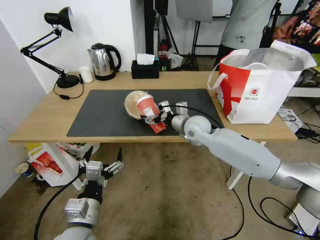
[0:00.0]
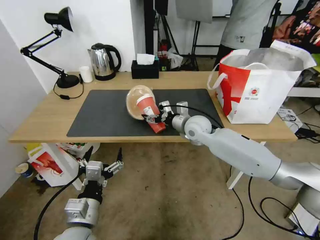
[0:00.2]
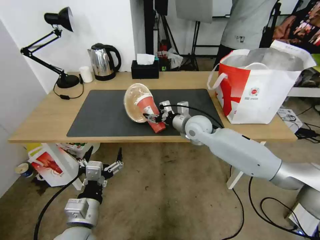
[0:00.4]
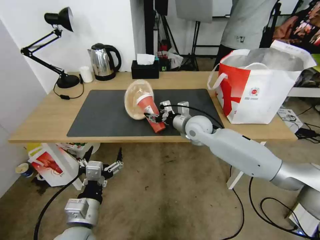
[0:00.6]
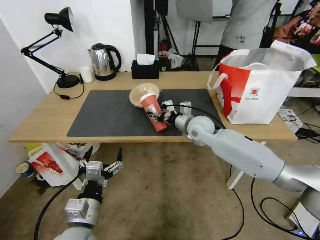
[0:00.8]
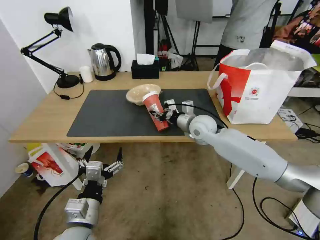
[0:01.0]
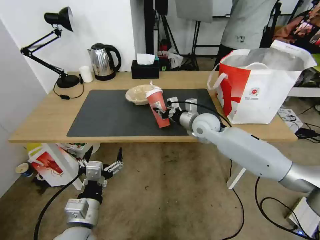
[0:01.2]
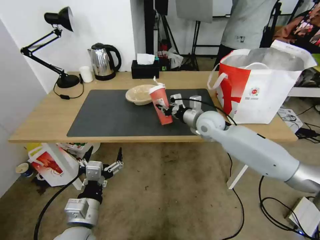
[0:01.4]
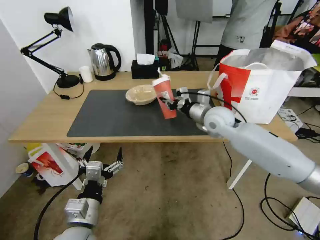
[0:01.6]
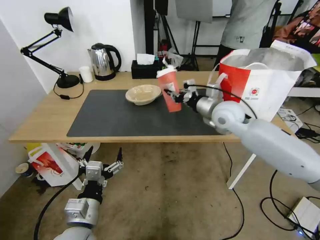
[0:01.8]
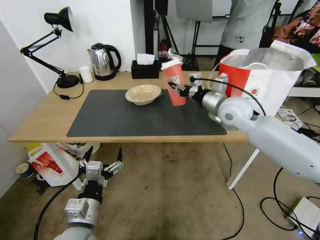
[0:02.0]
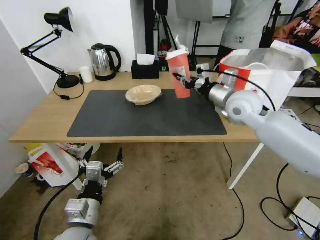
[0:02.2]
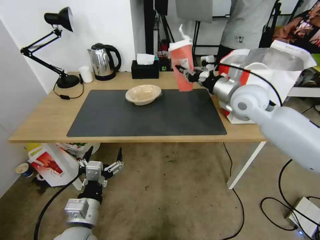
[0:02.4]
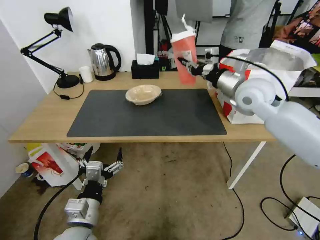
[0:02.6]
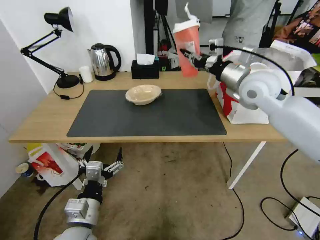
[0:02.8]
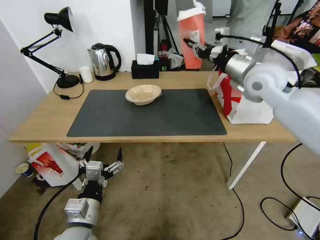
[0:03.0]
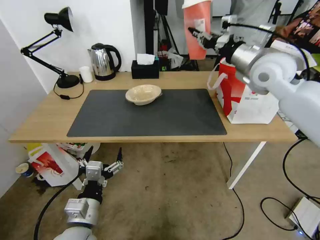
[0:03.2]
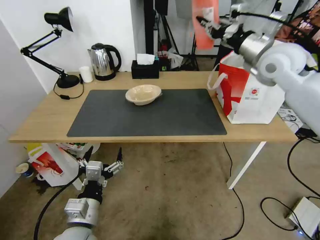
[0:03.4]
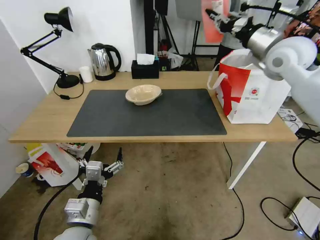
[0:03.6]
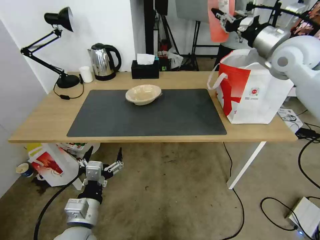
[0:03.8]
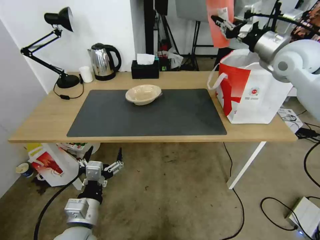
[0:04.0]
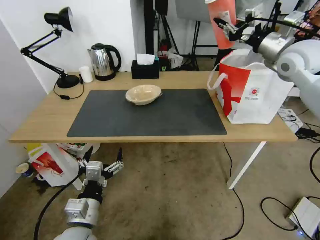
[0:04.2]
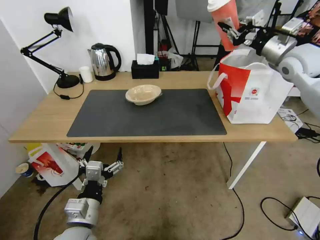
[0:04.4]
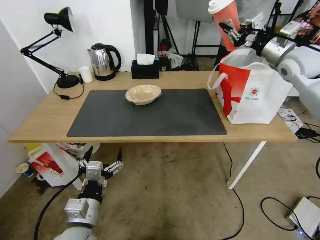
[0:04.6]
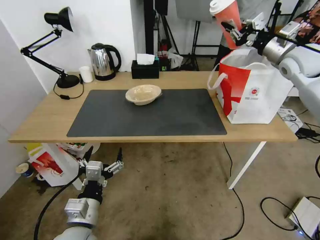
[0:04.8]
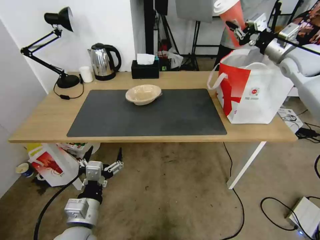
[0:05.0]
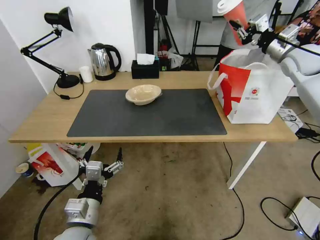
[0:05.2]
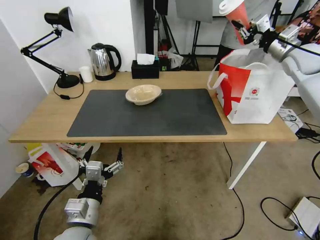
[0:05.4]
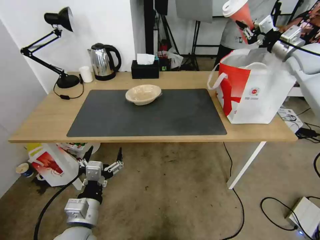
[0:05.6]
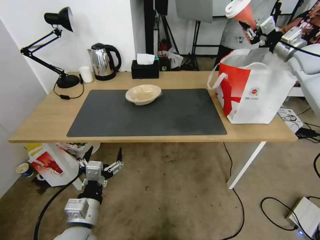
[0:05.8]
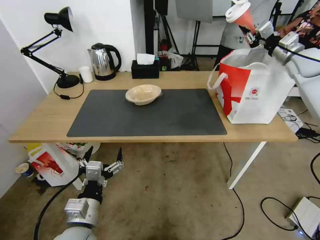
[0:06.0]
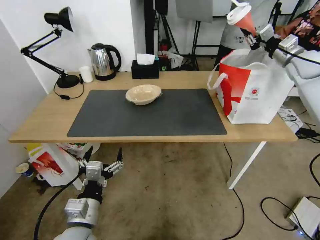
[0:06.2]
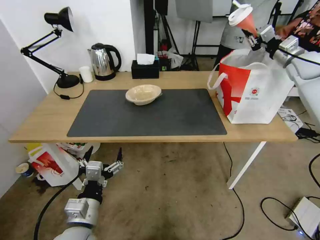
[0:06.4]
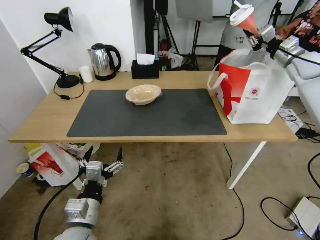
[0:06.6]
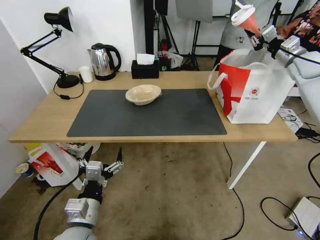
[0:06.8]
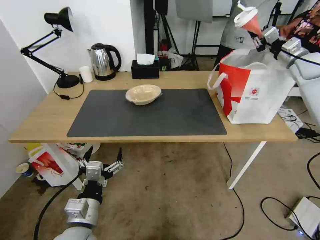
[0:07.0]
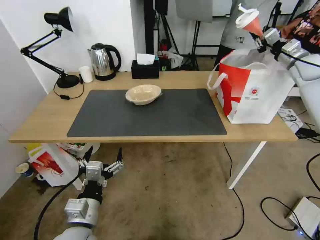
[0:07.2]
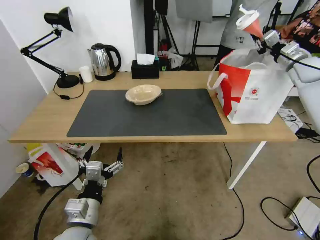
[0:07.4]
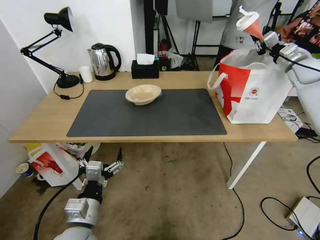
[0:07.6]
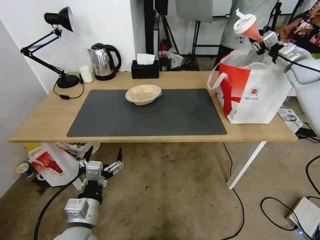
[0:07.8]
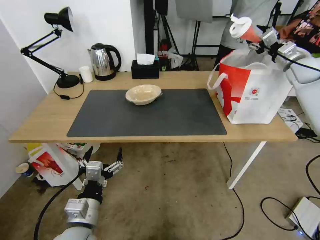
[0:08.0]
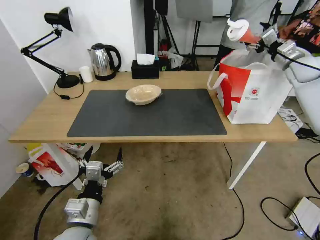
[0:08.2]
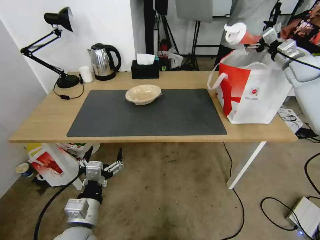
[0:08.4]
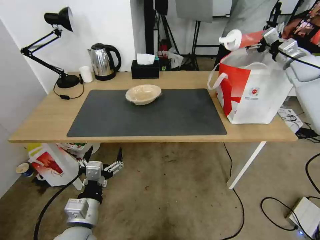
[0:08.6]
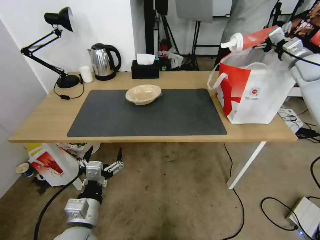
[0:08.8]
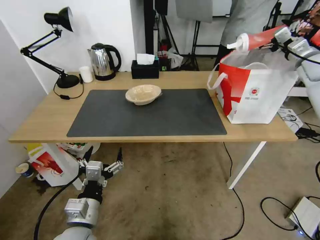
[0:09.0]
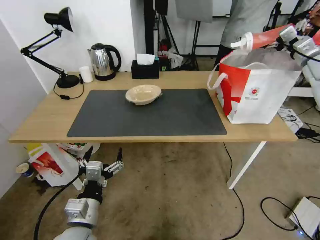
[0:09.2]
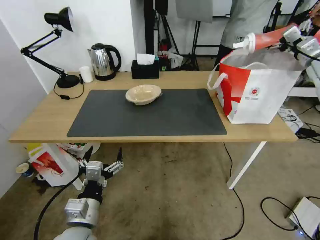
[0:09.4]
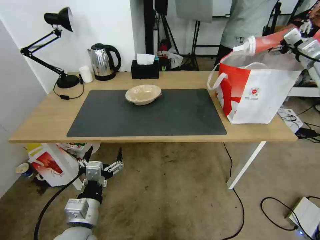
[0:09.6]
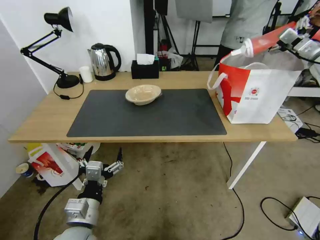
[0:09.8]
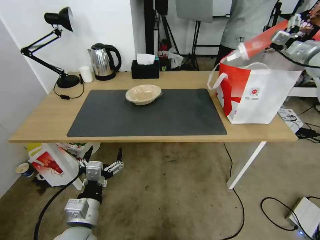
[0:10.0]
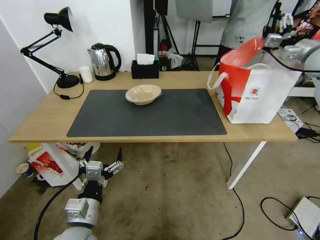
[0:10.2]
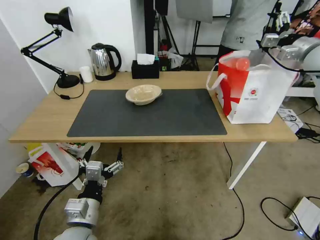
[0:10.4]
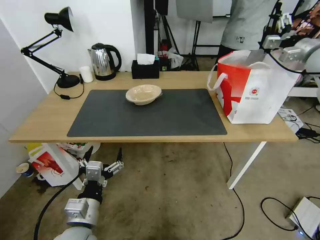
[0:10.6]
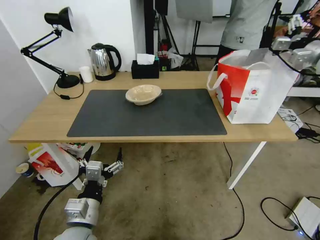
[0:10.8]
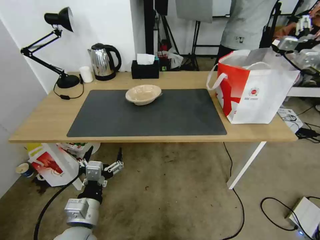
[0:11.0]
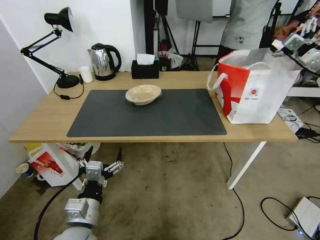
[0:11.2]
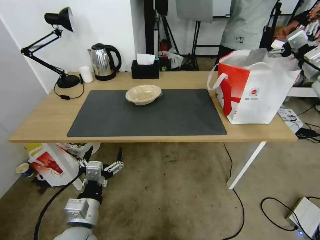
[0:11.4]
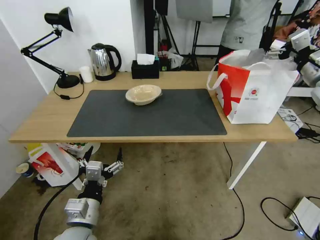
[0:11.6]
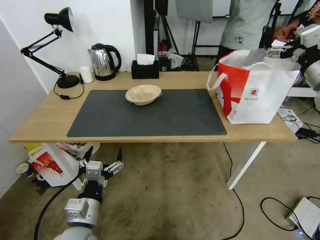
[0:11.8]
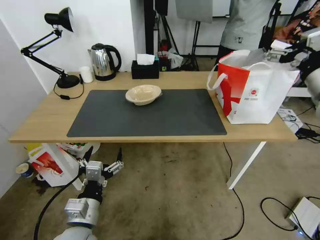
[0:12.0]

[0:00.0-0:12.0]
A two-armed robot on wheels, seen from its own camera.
Task of the whole recording: Pick up the trash from the table and place it into the takeout bag.
0:00.0 to 0:01.6: The right gripper is displaced to the right and upward by approximately 10 cm, and closes.
0:01.6 to 0:03.0: The right gripper is displaced upward and to the right by roughly 15 cm.
0:03.0 to 0:04.4: The right gripper is displaced to the right by approximately 10 cm.
0:04.4 to 0:06.0: The right gripper moves to the right and forward, roughly 10 cm.
0:06.0 to 0:07.6: The right gripper ends up about 5 cm from where it was.
0:07.6 to 0:09.0: The right gripper opens up.
0:09.0 to 0:10.4: The right gripper moves approximately 5 cm.
0:10.4 to 0:12.0: The right gripper goes roughly 20 cm backward and to the left.

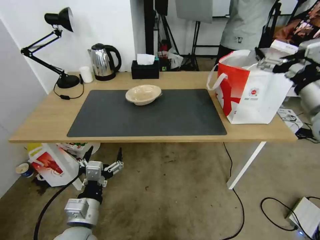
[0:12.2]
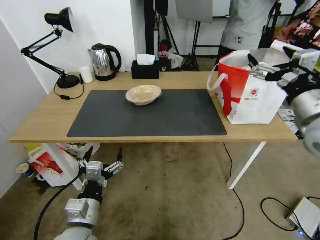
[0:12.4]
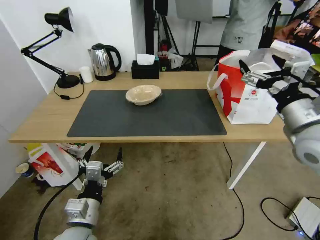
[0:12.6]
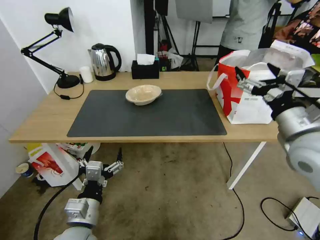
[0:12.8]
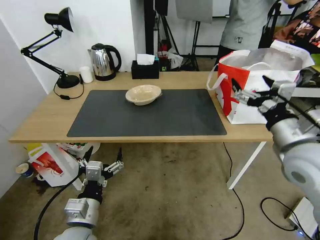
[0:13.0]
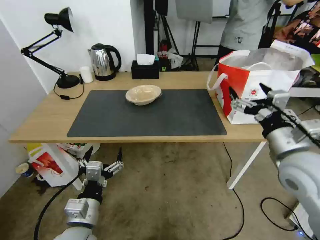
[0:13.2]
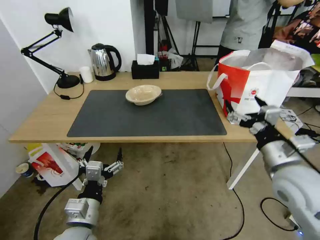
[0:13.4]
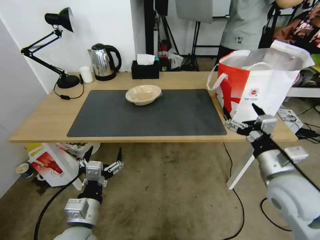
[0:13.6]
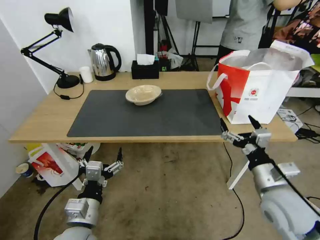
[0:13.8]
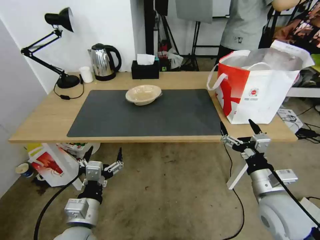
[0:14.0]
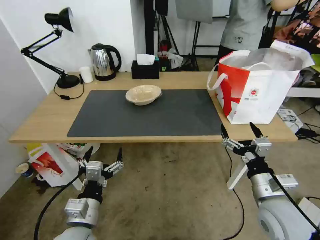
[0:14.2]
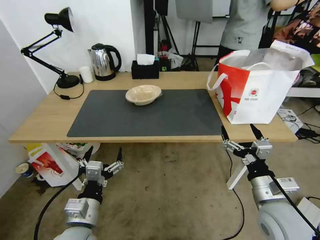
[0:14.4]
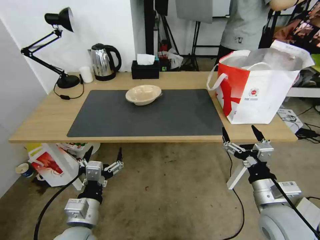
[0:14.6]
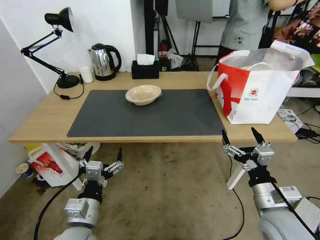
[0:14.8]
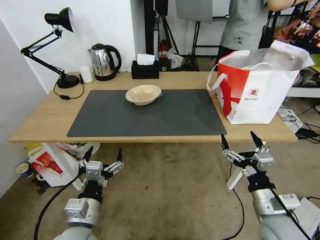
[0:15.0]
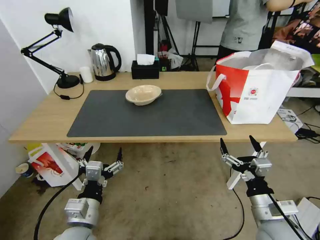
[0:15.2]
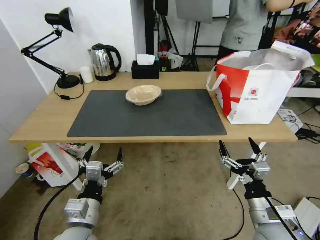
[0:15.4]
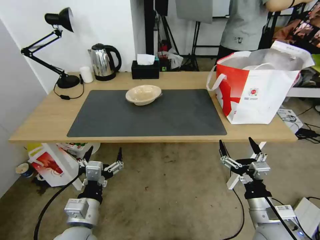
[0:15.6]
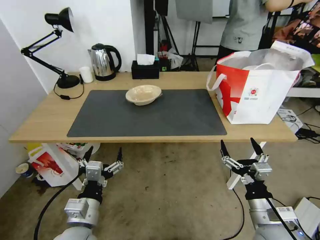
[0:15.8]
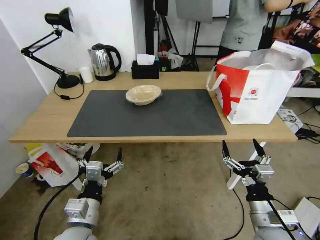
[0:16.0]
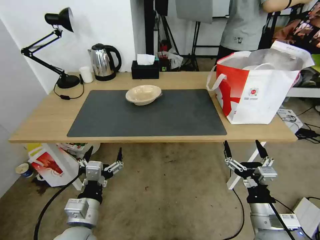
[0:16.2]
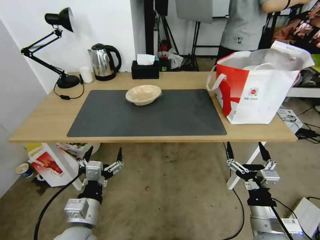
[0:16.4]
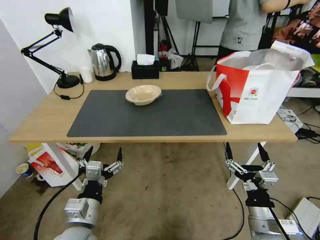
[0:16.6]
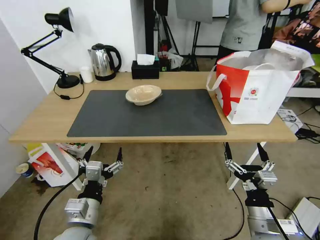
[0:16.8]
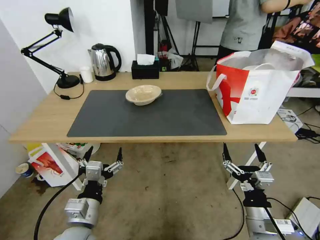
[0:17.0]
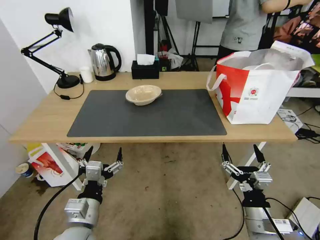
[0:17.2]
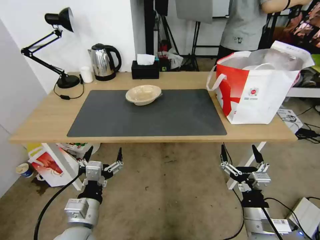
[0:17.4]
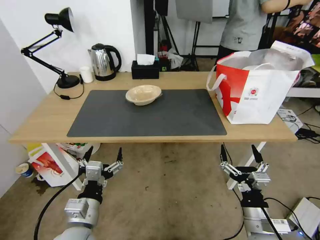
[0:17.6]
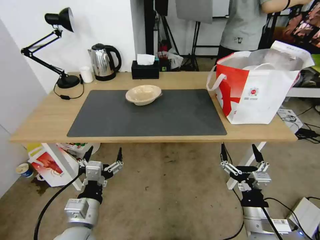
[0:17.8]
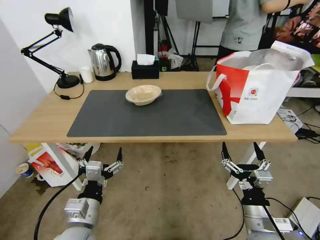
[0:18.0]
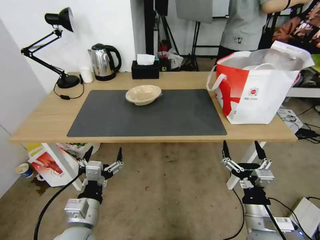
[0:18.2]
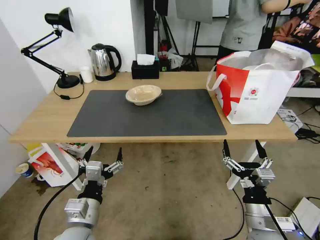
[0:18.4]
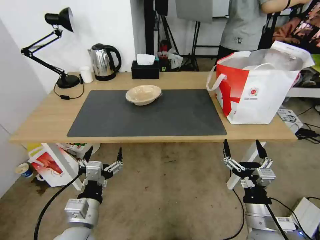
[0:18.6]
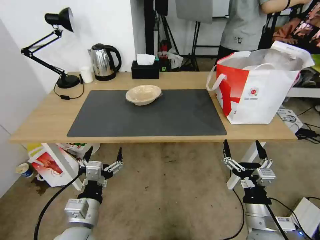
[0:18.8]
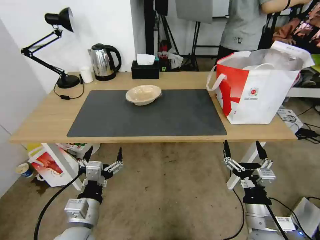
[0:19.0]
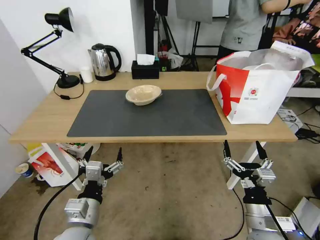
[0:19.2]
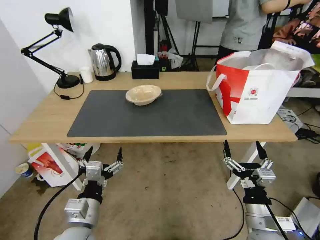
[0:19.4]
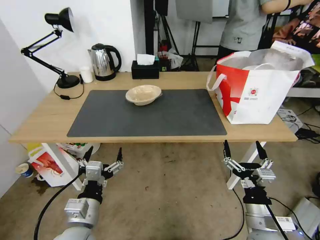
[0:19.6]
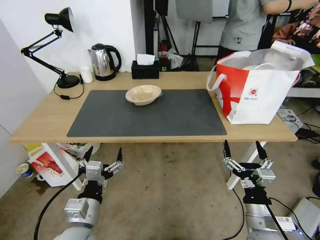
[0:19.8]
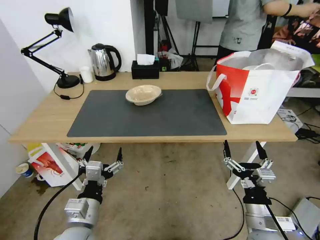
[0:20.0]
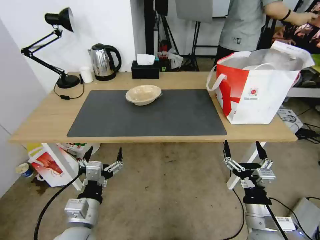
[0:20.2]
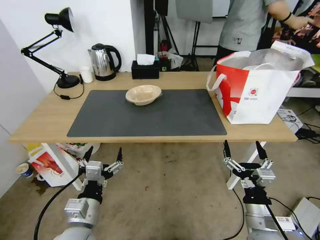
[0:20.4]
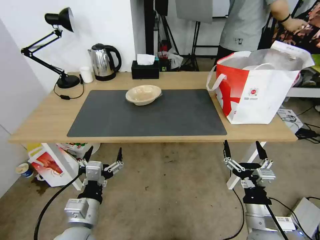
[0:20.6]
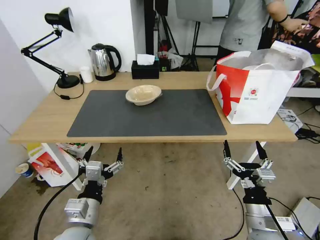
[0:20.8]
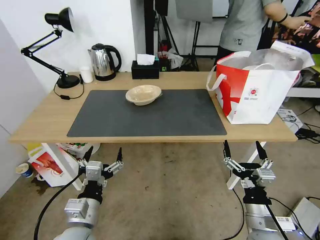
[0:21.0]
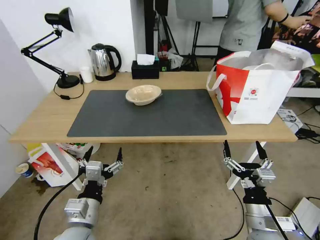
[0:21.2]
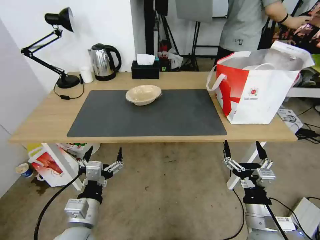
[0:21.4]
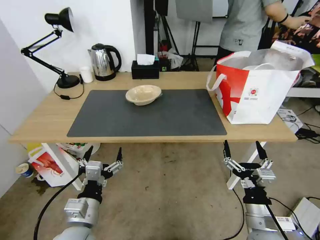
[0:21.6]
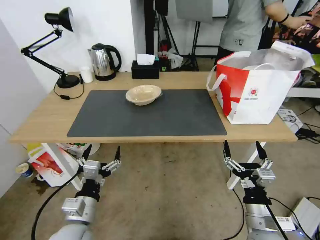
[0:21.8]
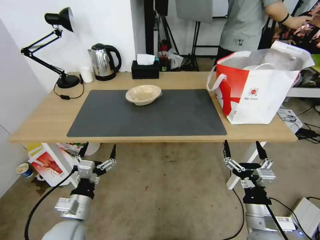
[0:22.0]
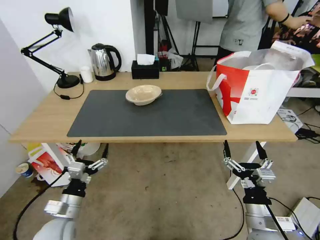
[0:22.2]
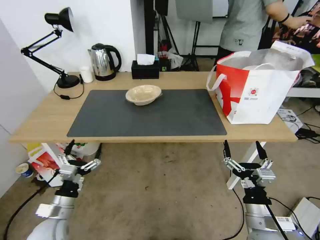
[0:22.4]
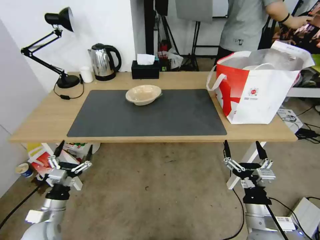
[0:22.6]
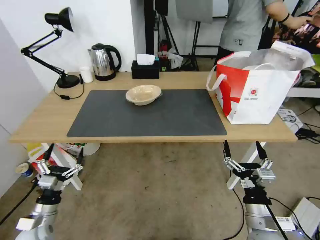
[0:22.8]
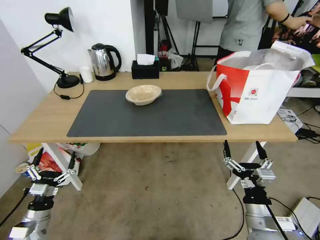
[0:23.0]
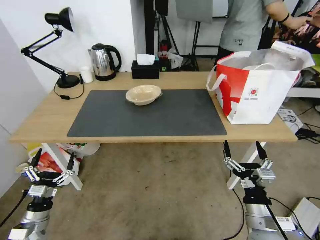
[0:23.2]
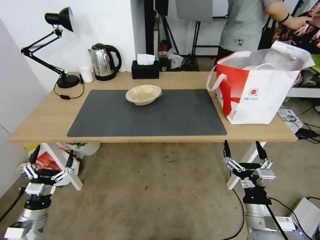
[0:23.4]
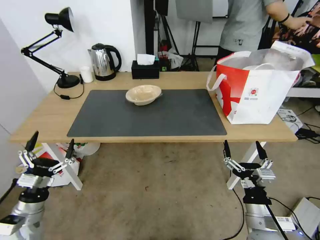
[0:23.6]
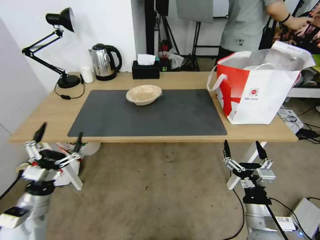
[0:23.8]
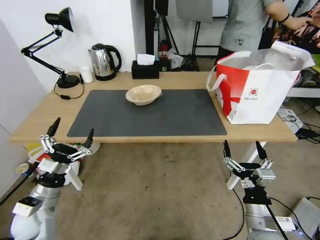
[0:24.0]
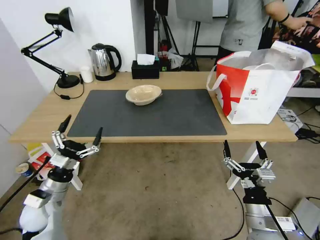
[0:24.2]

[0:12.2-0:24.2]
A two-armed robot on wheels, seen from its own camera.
Task of the whole recording: Pick up the trash from the table and place it into the takeout bag.
0:12.2 to 0:13.8: The right gripper moves downward, backward and to the left, approximately 25 cm.
0:13.8 to 0:15.2: The right gripper travels downward and backward by some 10 cm.
0:15.2 to 0:16.6: There are only small adjustments of the grippers.
0:16.6 to 0:21.2: The two grippers keep their place.
0:21.2 to 0:22.6: The left gripper travels to the left and downward by about 20 cm.
0:22.6 to 0:24.2: The left gripper travels upward by roughly 5 cm.
